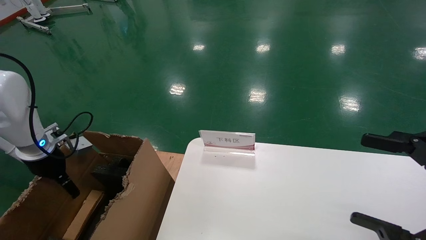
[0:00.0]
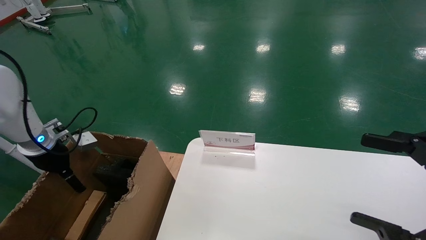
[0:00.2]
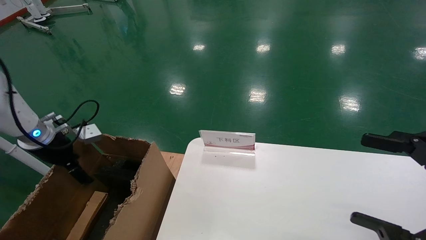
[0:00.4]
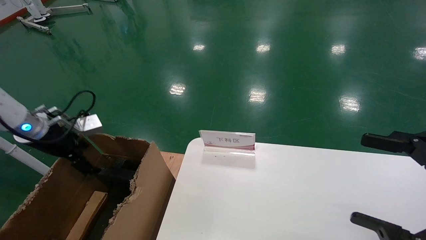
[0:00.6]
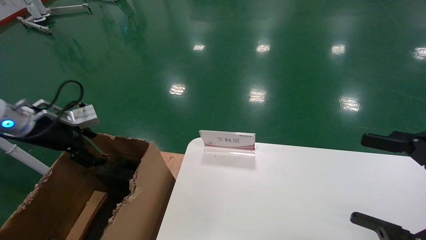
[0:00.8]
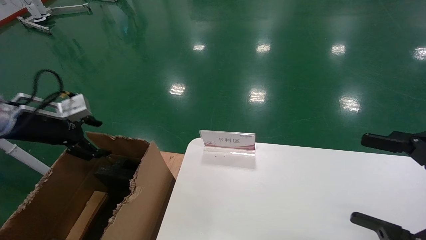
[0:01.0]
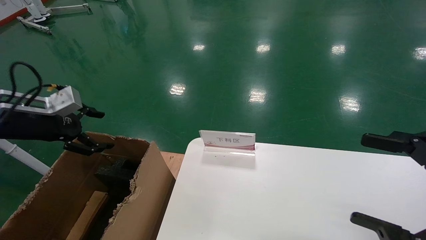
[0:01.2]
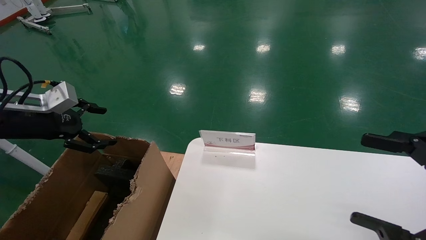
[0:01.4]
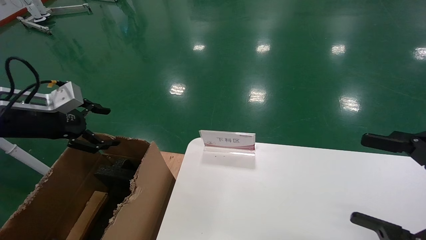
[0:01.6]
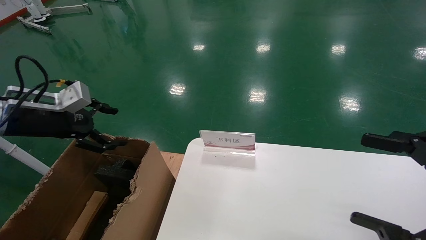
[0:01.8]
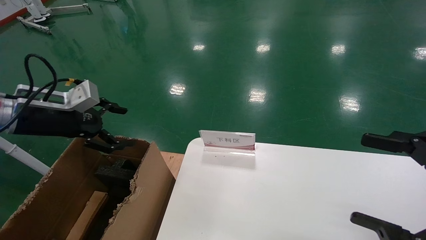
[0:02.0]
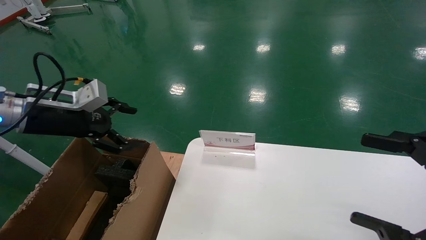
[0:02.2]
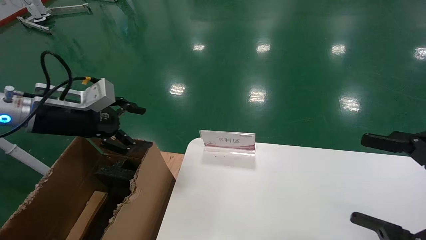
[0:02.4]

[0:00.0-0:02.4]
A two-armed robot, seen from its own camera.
Task of the whole recording: pick up the small cardboard box and load it into the large cardboard box.
0:00.0 to 0:01.2: The left gripper travels upward and backward by about 10 cm.
0:01.2 to 0:02.4: The left gripper heads to the right, covering approximately 5 cm.
